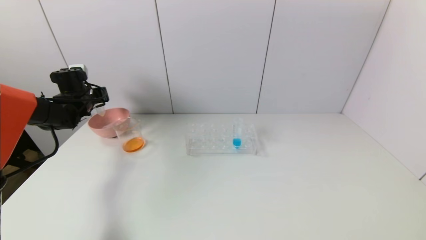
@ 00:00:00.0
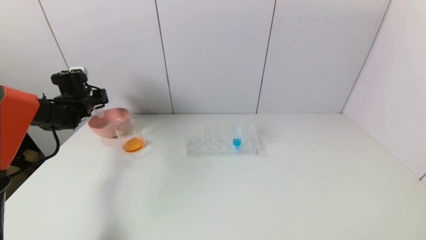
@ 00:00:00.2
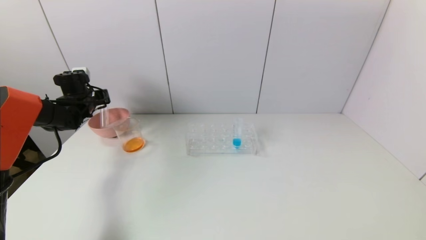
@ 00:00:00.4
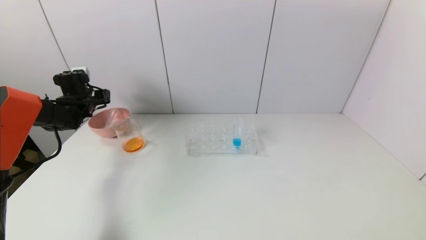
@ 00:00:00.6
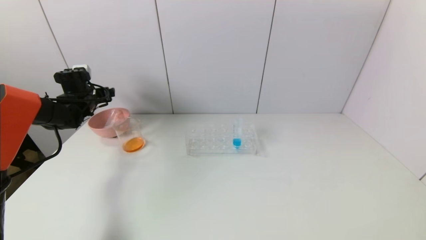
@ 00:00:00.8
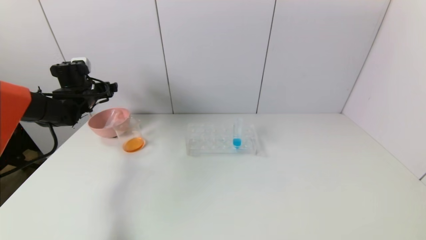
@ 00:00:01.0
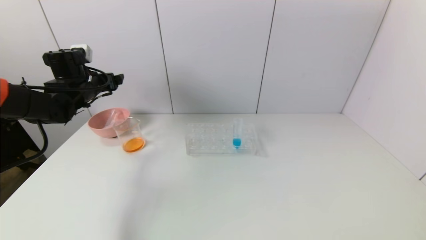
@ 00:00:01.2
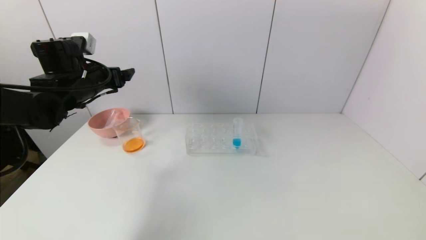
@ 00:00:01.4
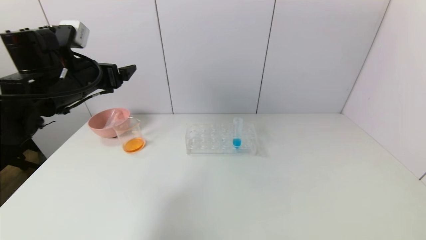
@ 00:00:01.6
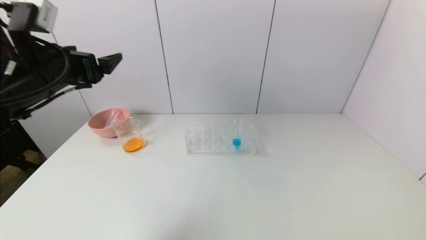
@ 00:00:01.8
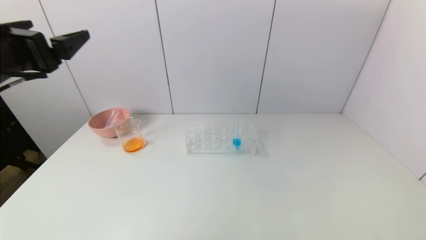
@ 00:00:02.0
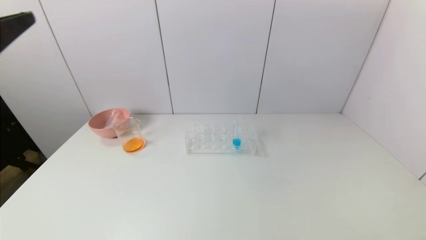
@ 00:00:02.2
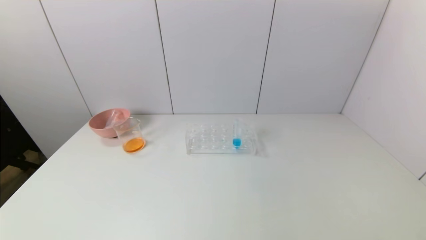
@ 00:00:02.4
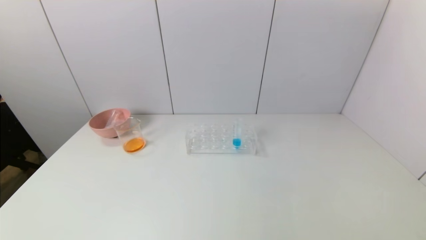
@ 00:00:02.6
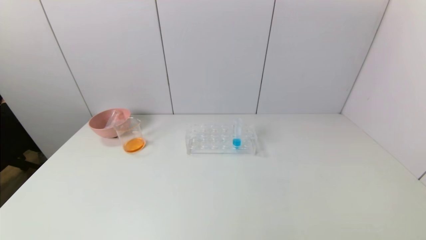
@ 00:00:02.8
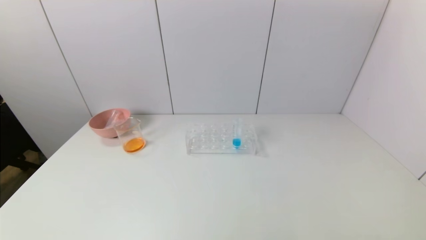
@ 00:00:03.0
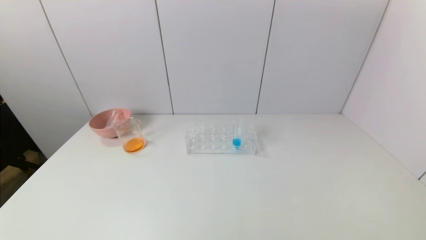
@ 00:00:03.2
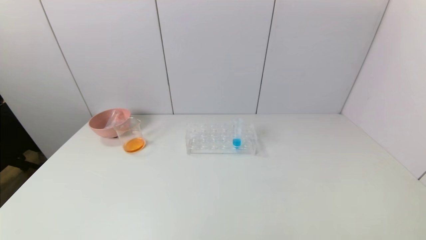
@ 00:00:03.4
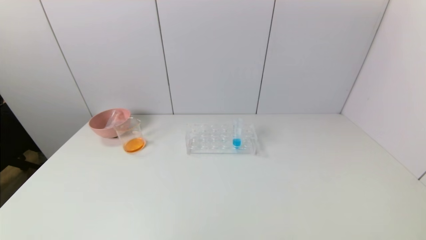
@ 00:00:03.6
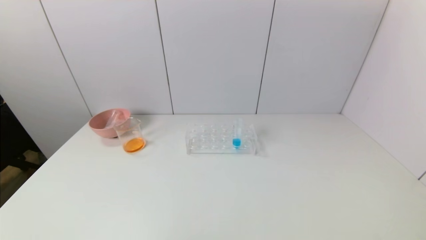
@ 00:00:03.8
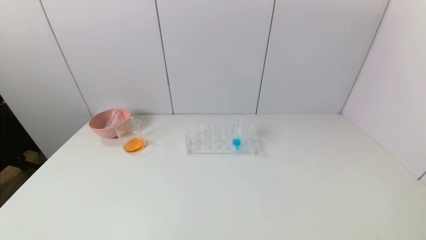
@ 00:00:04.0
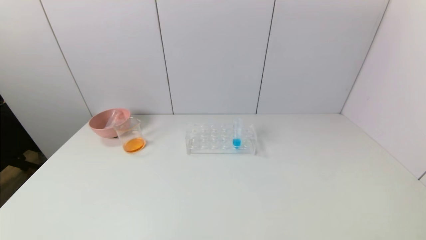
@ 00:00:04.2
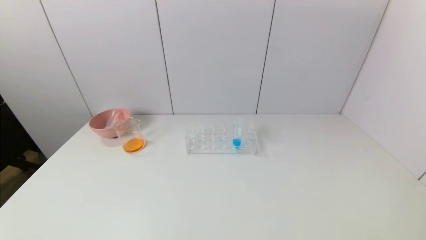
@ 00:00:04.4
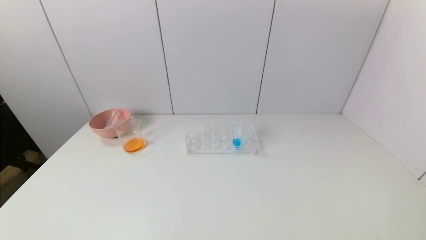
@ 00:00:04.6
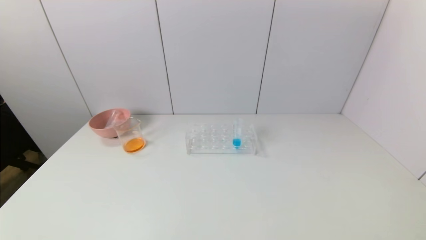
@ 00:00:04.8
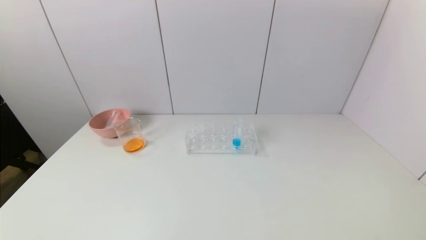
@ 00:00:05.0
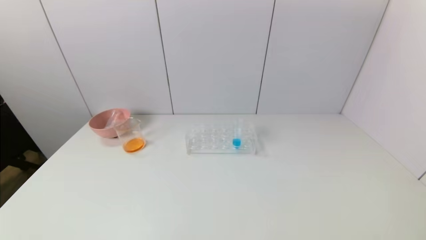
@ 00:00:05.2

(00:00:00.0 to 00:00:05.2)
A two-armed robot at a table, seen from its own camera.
Task of the whole recording: pick up the test tube with yellow pigment and the test tube with red pigment by grippers and pour them into the beaker.
00:00:00.0 - 00:00:01.8: The left gripper goes some 30 cm backward, upward and to the right, and opens up.
00:00:01.8 - 00:00:03.4: The left gripper shifts about 30 cm backward.
